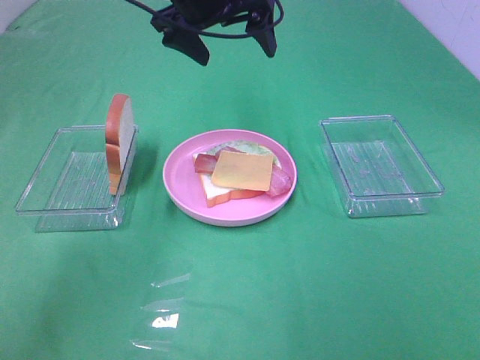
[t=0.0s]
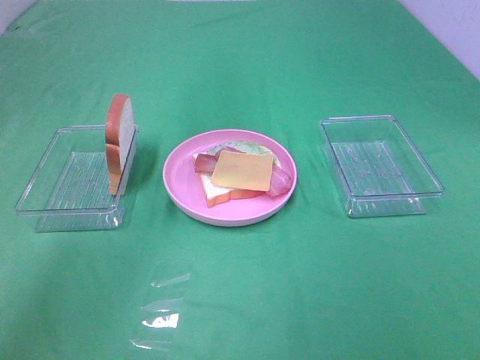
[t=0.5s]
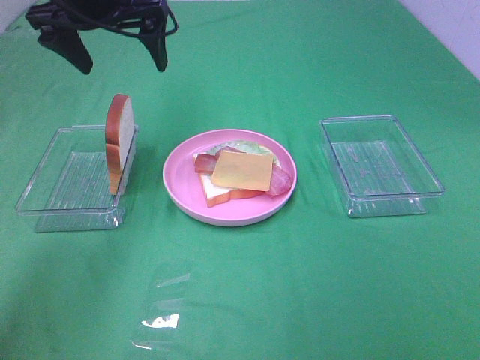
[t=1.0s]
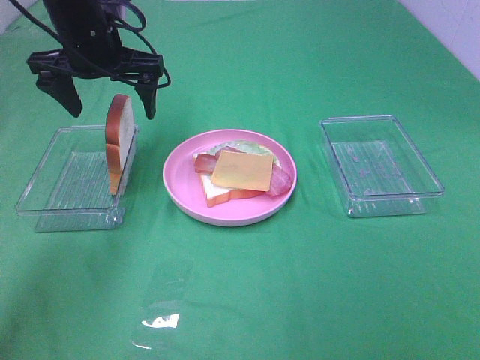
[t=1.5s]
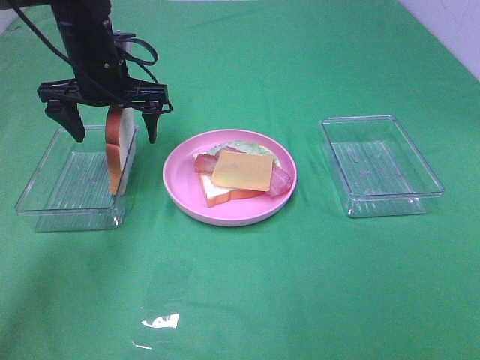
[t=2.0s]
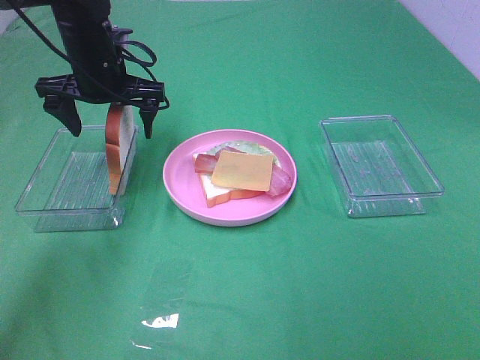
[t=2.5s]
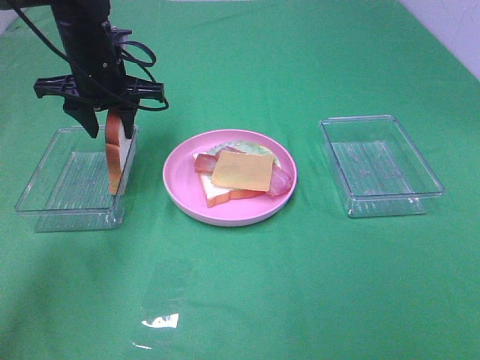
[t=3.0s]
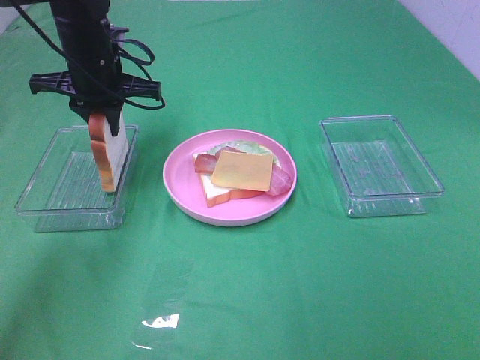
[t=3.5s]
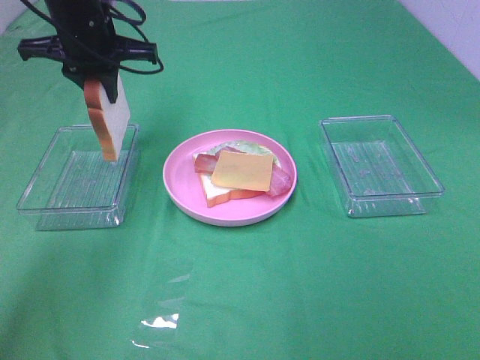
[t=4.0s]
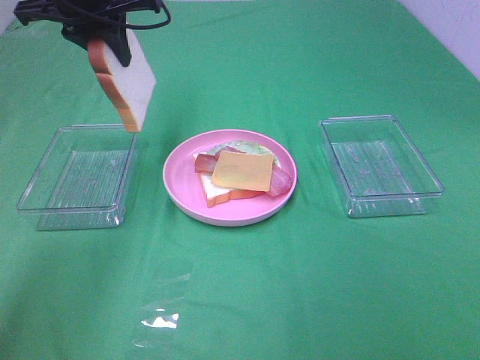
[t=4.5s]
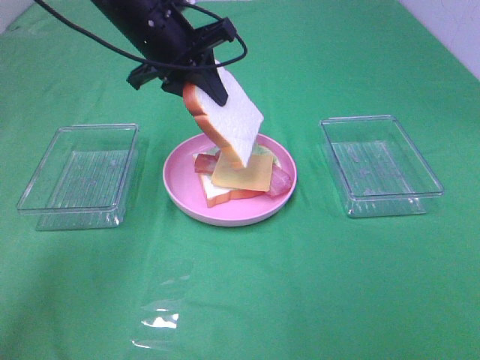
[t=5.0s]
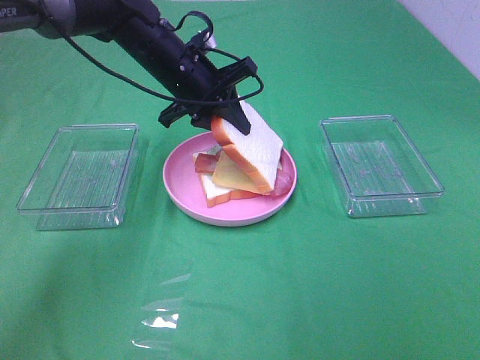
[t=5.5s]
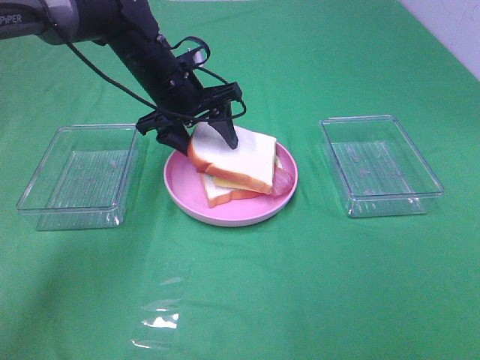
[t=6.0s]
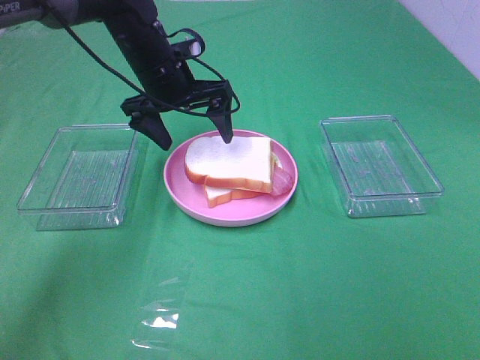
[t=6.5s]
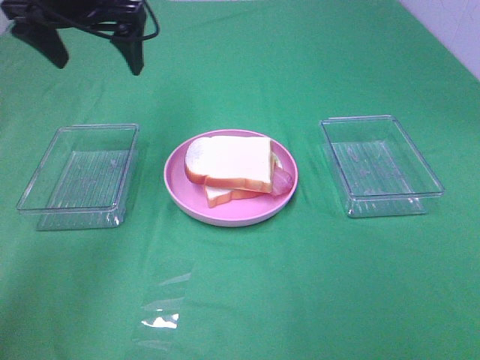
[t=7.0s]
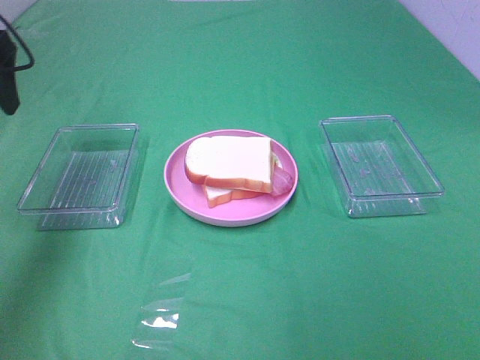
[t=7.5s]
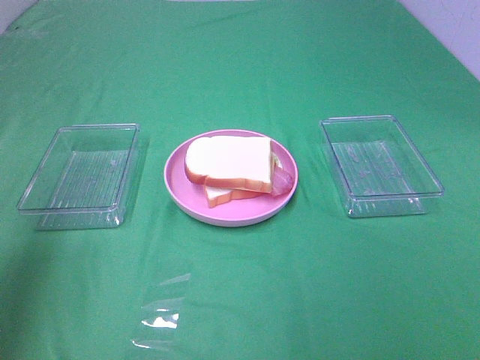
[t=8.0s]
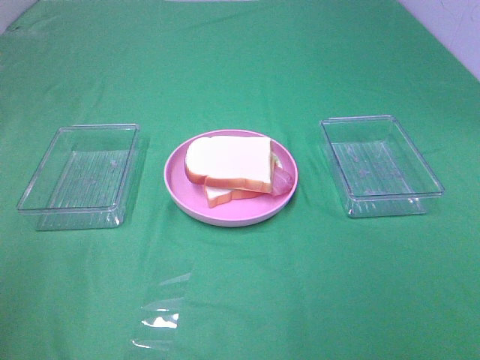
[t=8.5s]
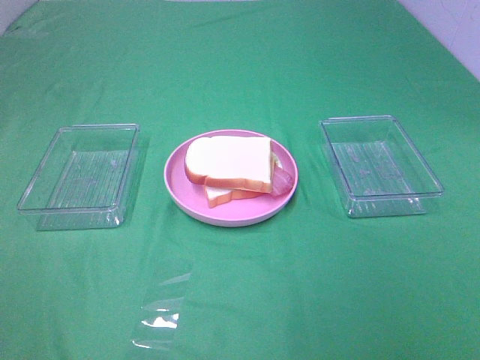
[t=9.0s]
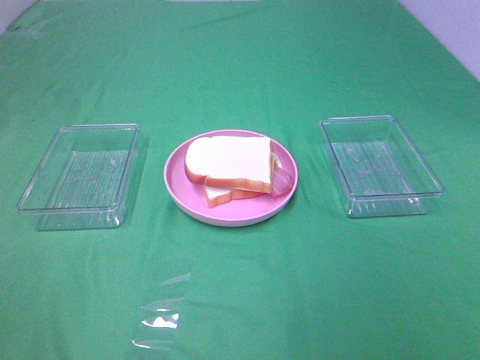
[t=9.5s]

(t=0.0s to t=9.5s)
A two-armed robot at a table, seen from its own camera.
Task of the whole recording: Make sandwiches.
Step, t=0.0s - t=3.0s: Left hand:grab the bread slice.
Step, t=3.5s - t=6.0s: Left hand:place the bread slice on the cheese slice.
t=0.0s - t=2.0s: The left gripper shifts some 15 cm to the left and downward.
t=2.0s - t=4.0s: The left gripper goes about 5 cm upward, and closes its fingers.
t=4.0s - t=5.5s: The left gripper goes roughly 10 cm to the right and downward.
t=5.5s - t=7.5s: The left gripper heads to the left, upward and backward, covering approximately 25 cm, and opens.
t=7.5s - t=9.5s: The left gripper moves backward, roughly 35 cm.

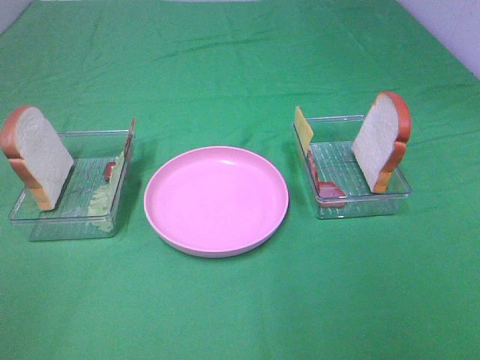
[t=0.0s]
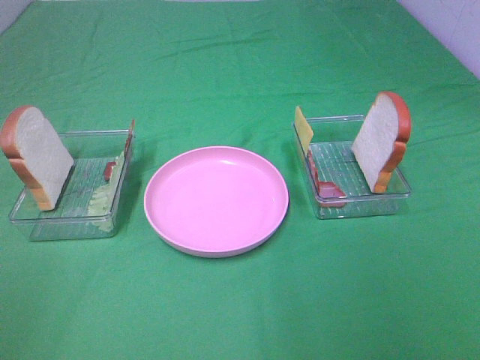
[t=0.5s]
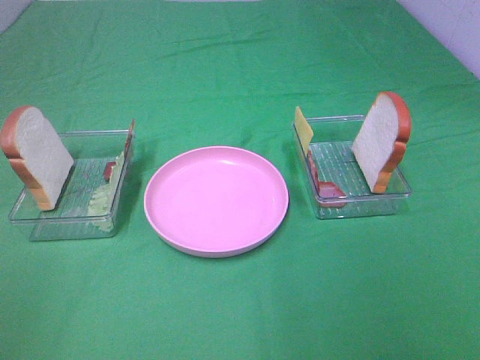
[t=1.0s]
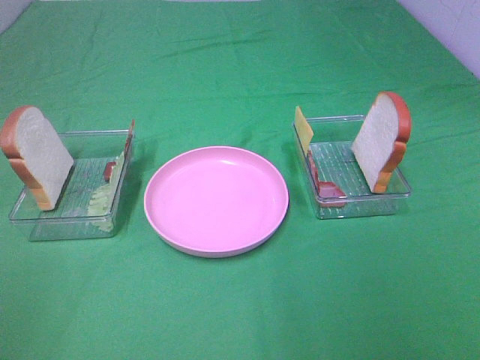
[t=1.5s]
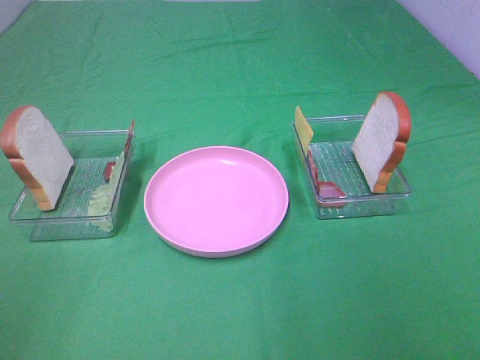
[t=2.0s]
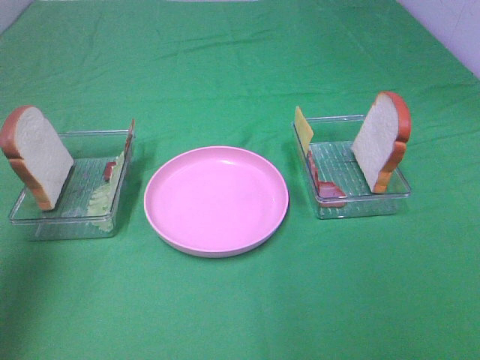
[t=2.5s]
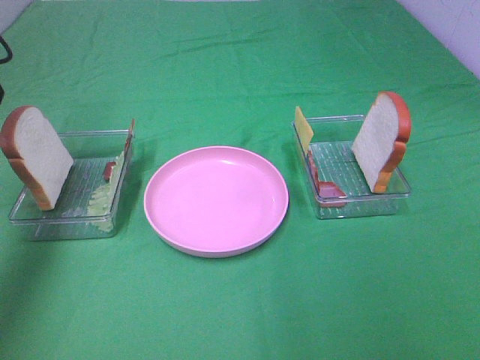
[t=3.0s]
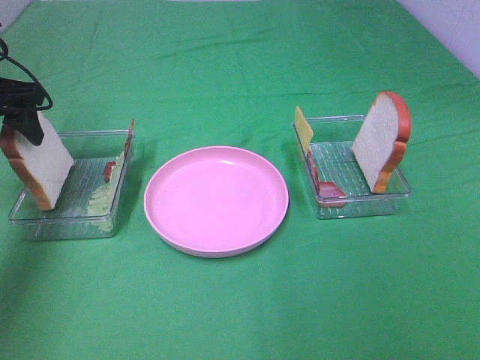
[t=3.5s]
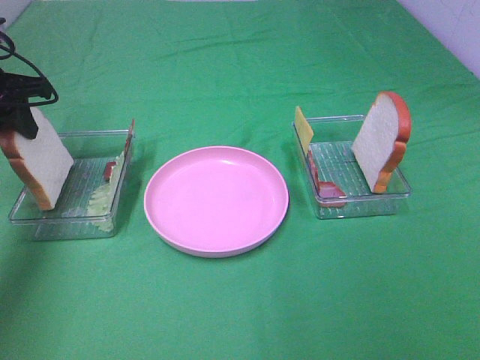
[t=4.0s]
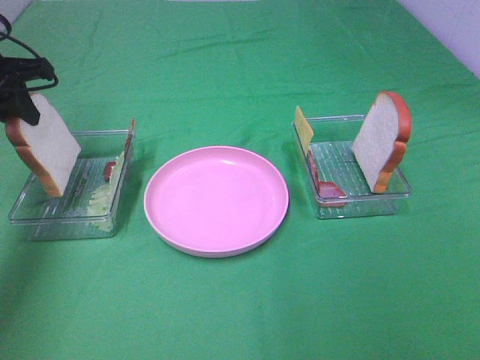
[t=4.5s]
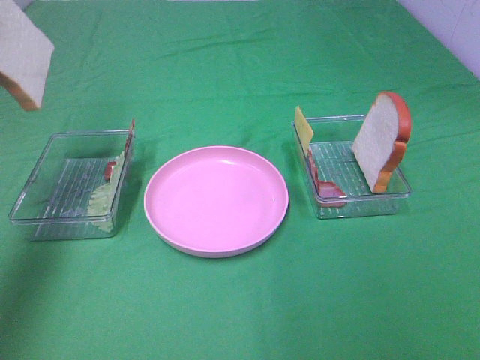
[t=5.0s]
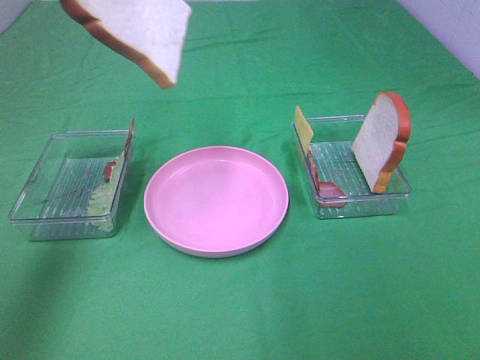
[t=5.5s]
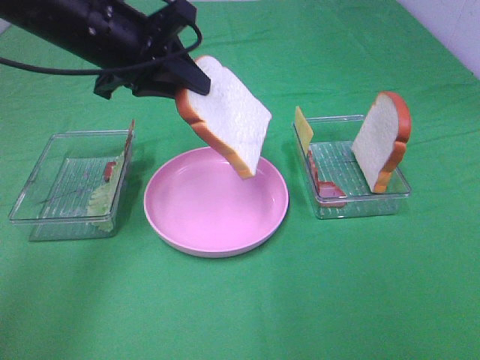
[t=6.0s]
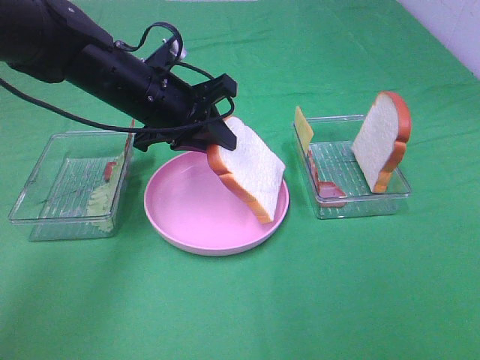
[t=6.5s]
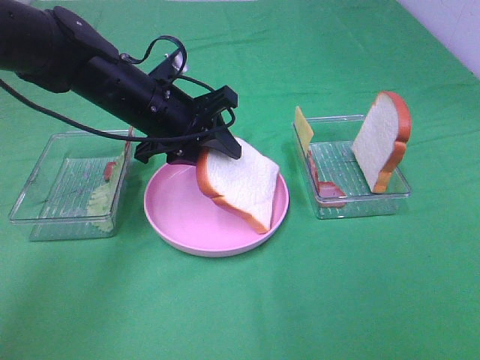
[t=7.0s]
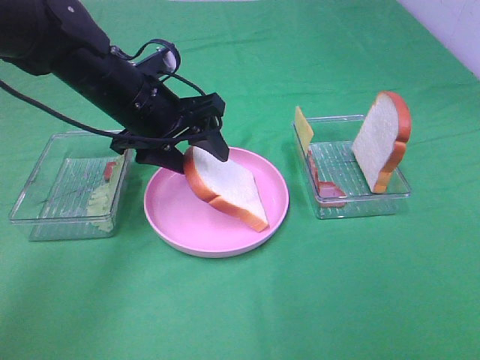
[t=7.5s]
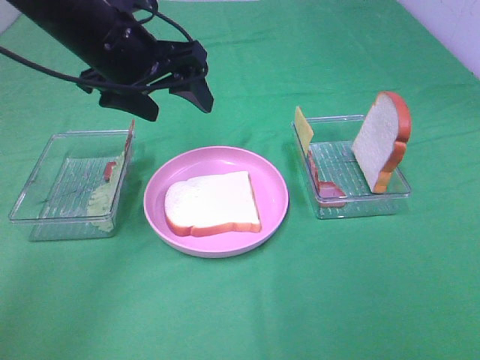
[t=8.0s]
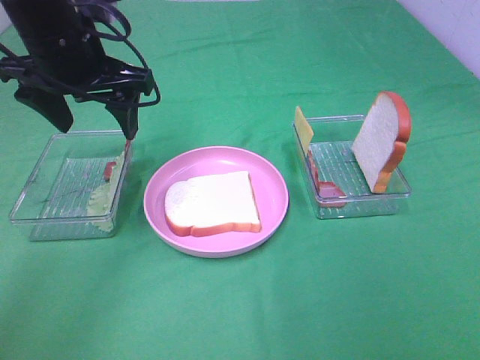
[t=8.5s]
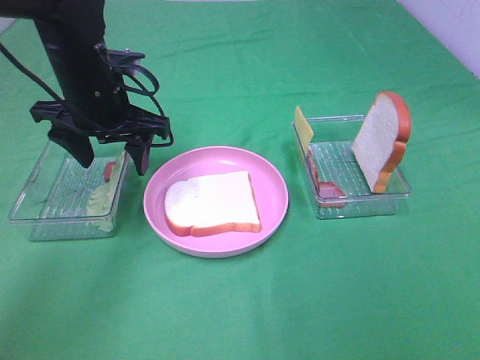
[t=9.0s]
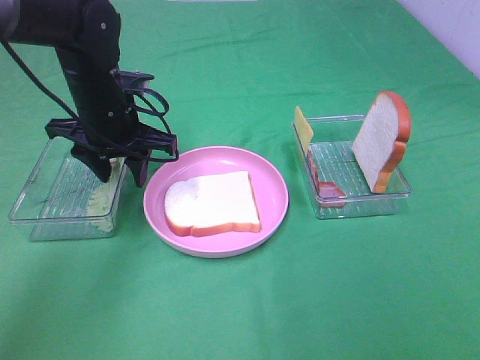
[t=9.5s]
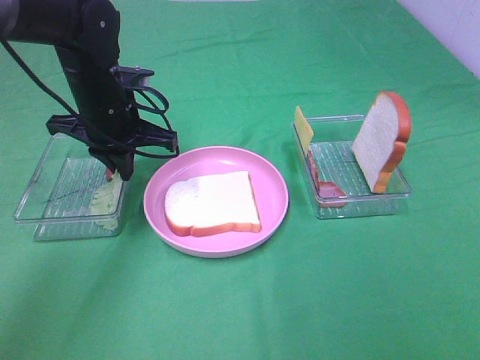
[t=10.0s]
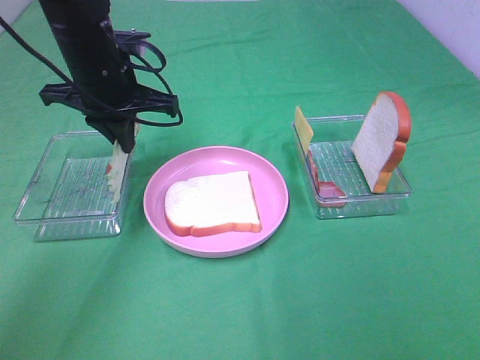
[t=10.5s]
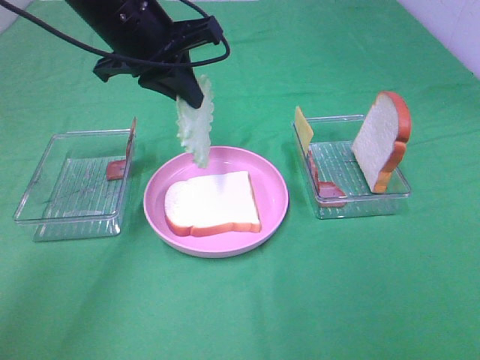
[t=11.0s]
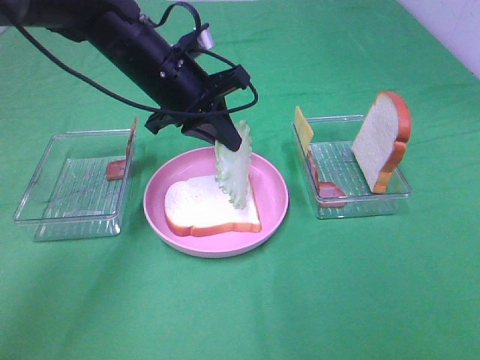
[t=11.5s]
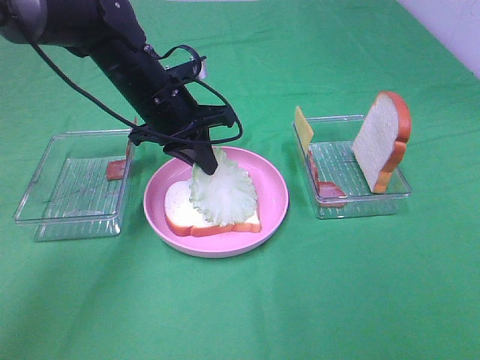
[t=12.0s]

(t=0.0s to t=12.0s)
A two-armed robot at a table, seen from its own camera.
Task of the whole recording: Make sandwiches.
Step, t=0.0s - t=4.0s: Left hand:grab the bread slice.
Step, t=4.5s - t=7.5s: Left hand:place the bread slice on the plate.
Step, t=8.0s - t=10.0s: Left hand:grab the lettuce slice.
t=2.0s - t=4.0s: The left gripper heads forward, covering roughly 35 cm, and closes its fingers.
t=4.0s - t=6.0s: The left gripper moves to the right, roughly 15 cm.
t=6.0s - t=8.0s: The left gripper reaches roughly 10 cm downward, then returns, and opens up.
t=8.0s - t=10.0s: The left gripper moves downward, roughly 10 cm, and closes.
t=10.0s - t=12.0s: The left gripper heads to the right, covering approximately 5 cm, and travels upward and back again, some 10 cm each way.

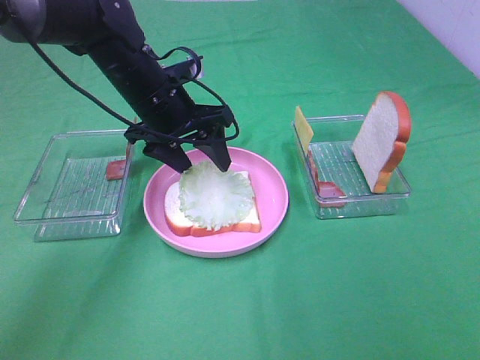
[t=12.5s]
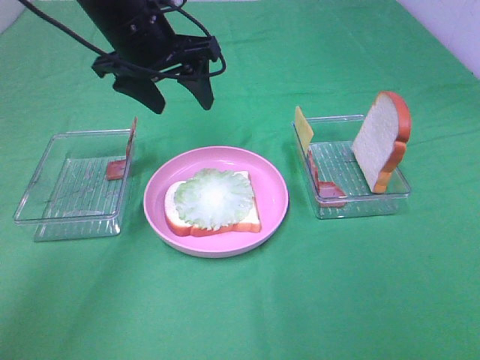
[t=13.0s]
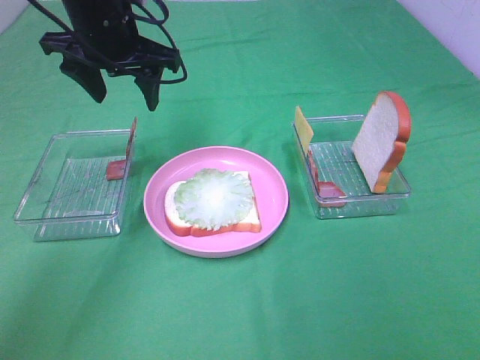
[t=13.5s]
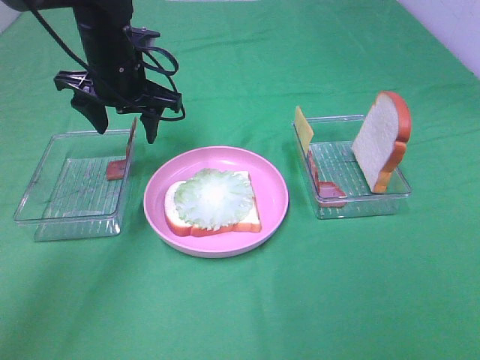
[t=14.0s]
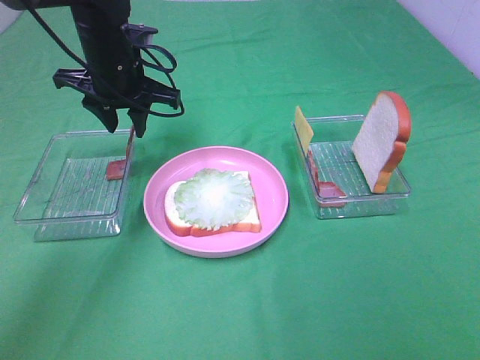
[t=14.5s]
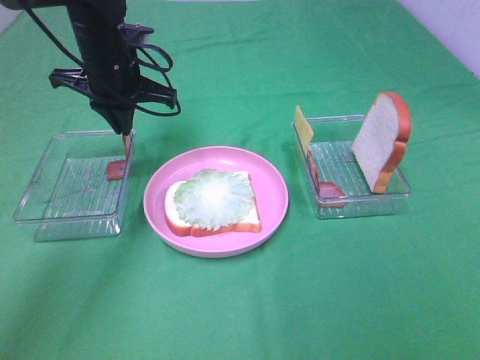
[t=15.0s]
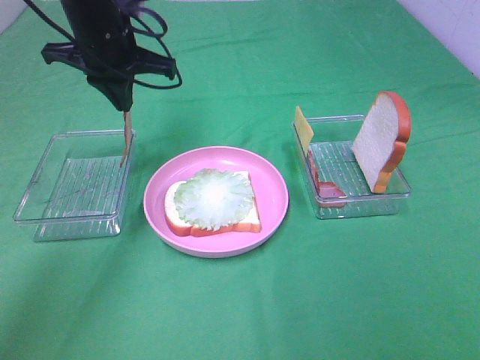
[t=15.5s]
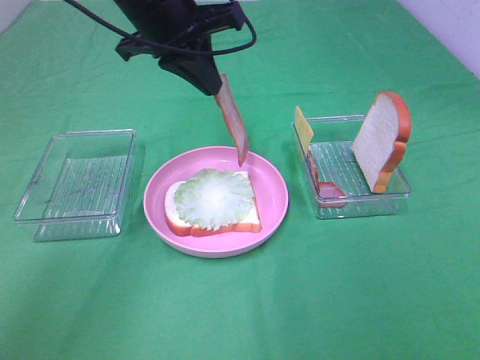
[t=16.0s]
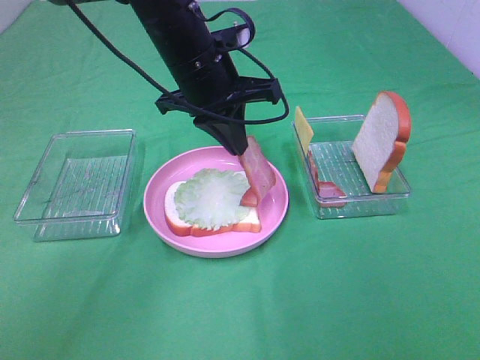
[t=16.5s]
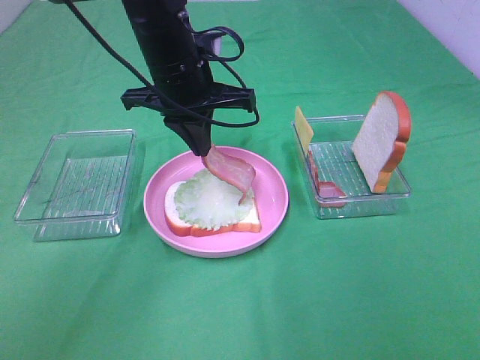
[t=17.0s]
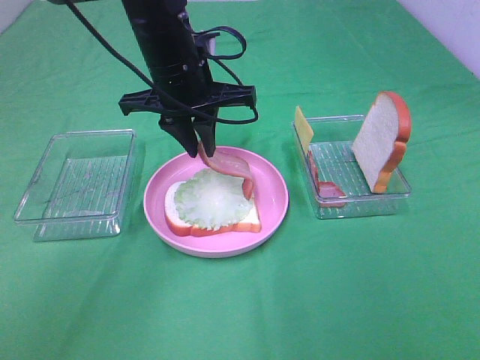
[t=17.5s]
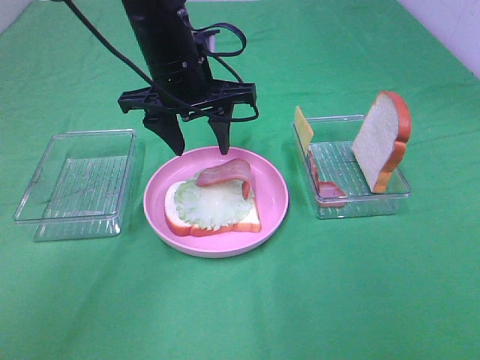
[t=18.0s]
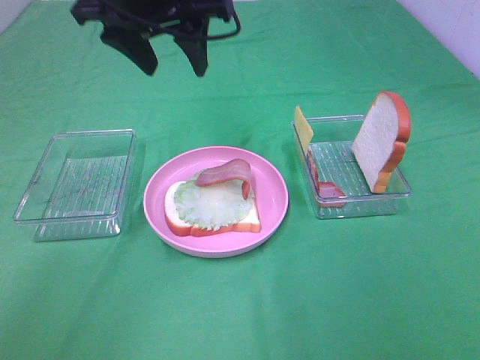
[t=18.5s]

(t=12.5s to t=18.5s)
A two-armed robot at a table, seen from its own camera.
Task of the whole recording: Make sandwiches.
Step, t=13.0s - t=15.0s: Left hand:grab the bacon.
Step, t=15.5s - t=17.5s: Left hand:place bacon on lettuce slice.
t=12.5s - t=14.5s: The left gripper reaches roughly 10 cm upward, then returns.
t=14.5s - t=16.5s: The left gripper goes some 10 cm to the right and backward, and closes up.
t=16.5s - t=18.5s: The left gripper shifts about 10 cm upward, and opens.
